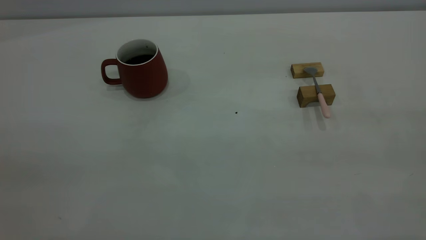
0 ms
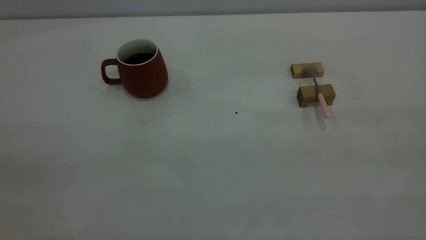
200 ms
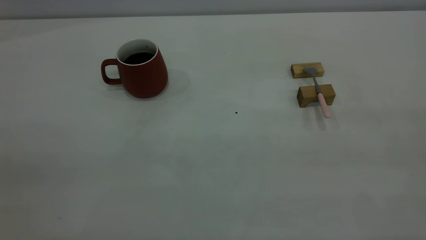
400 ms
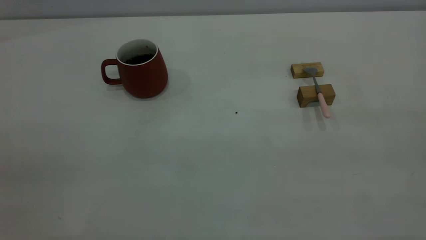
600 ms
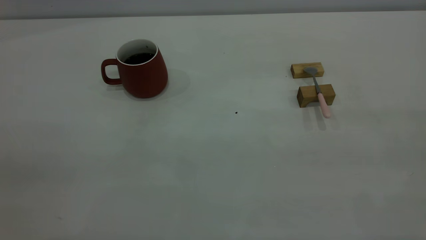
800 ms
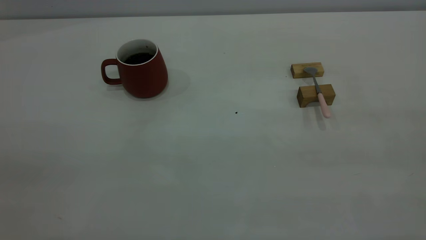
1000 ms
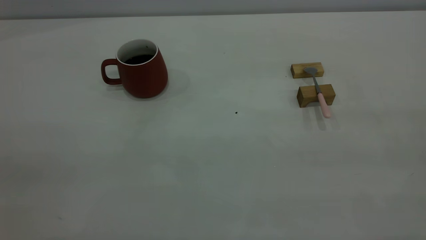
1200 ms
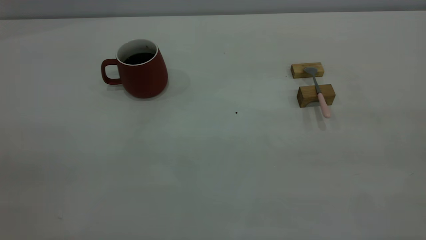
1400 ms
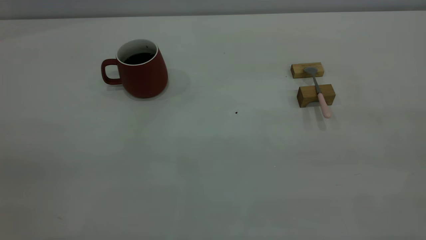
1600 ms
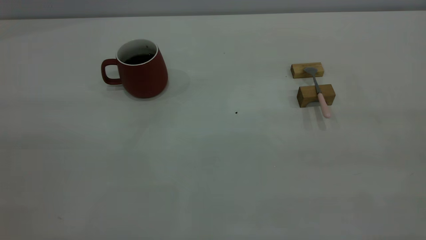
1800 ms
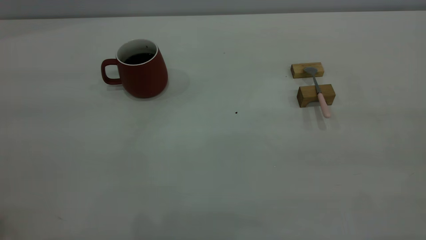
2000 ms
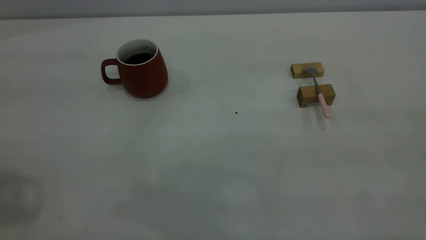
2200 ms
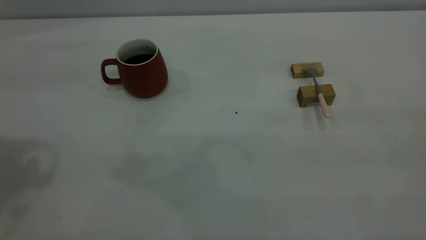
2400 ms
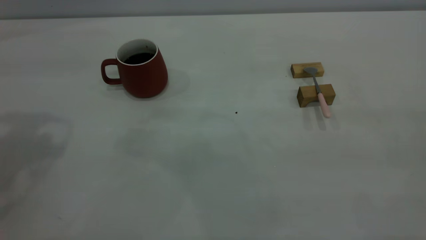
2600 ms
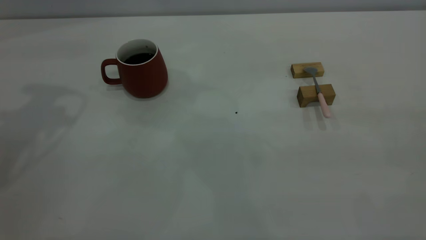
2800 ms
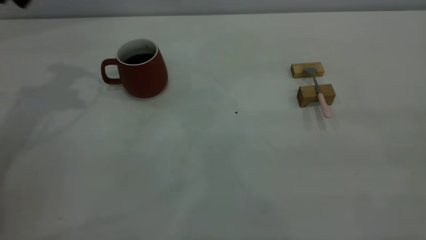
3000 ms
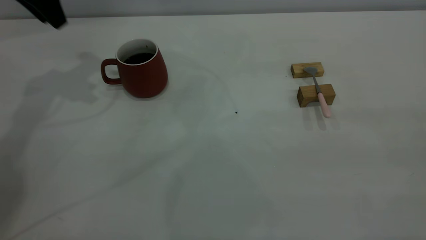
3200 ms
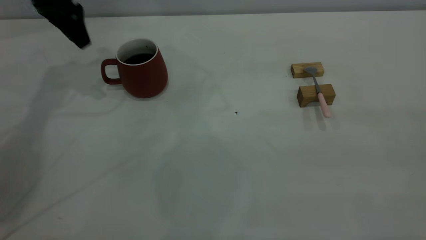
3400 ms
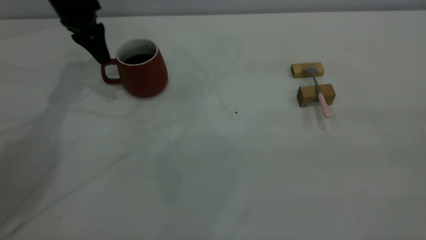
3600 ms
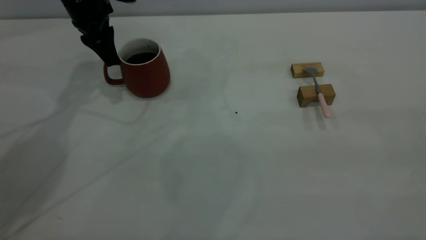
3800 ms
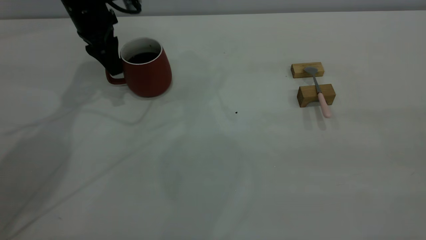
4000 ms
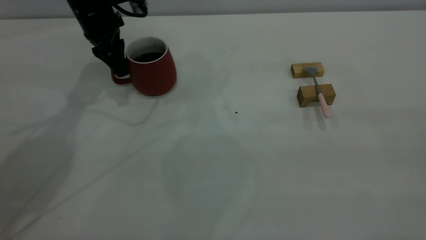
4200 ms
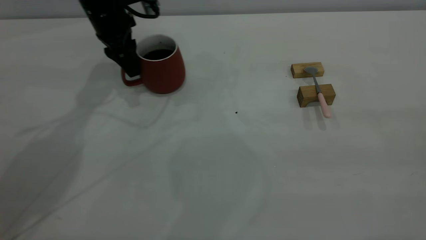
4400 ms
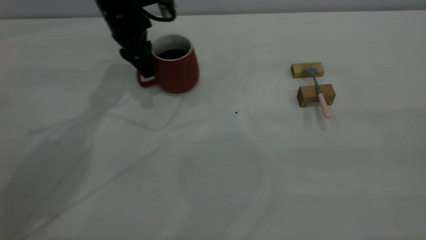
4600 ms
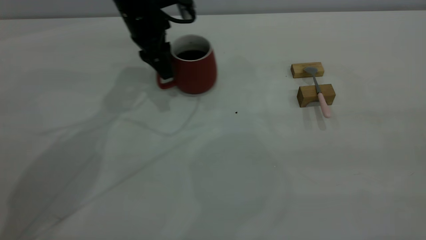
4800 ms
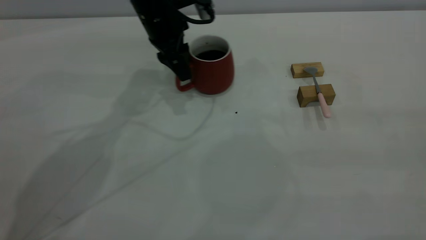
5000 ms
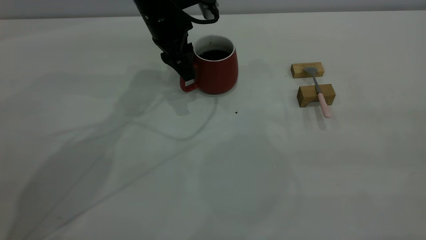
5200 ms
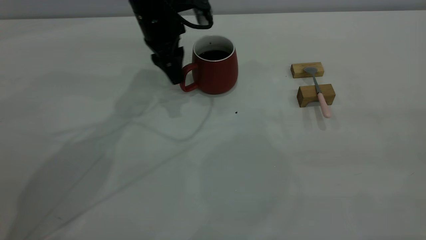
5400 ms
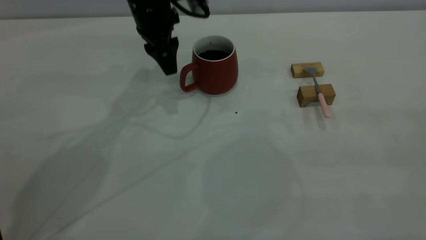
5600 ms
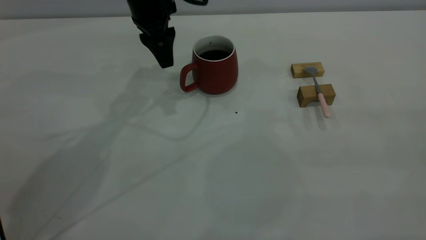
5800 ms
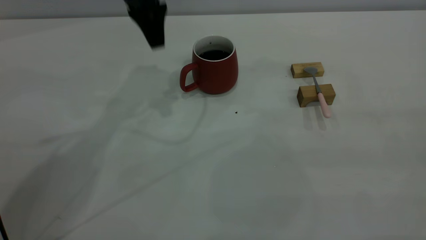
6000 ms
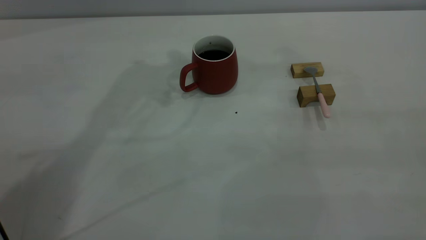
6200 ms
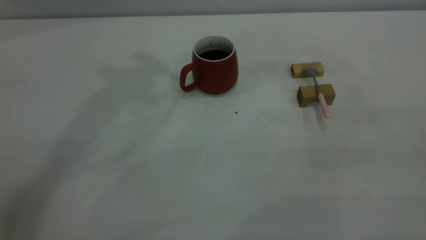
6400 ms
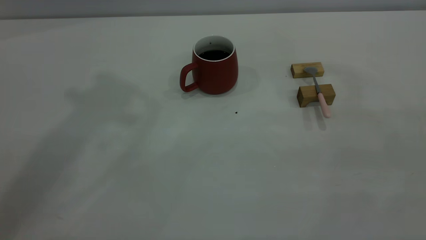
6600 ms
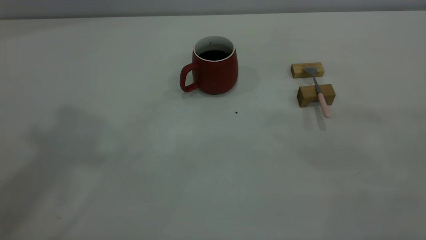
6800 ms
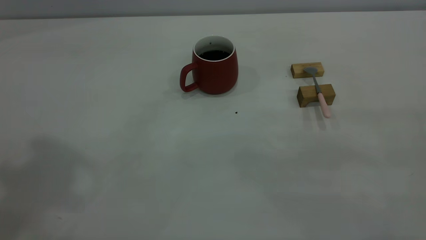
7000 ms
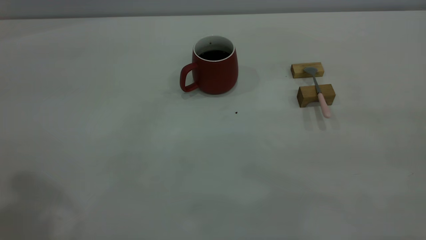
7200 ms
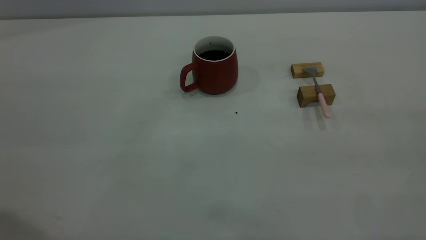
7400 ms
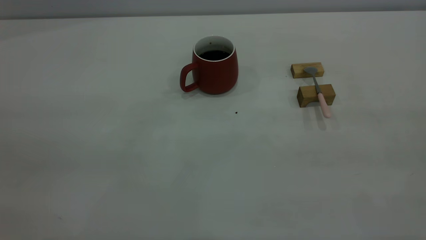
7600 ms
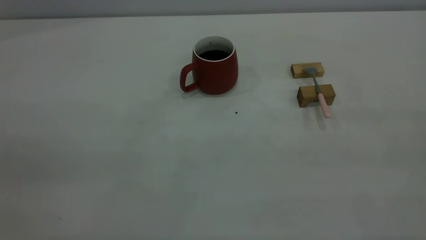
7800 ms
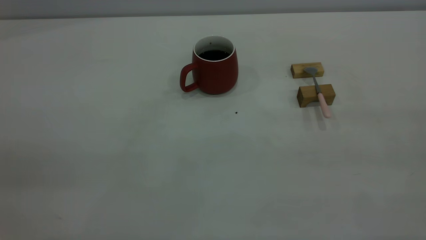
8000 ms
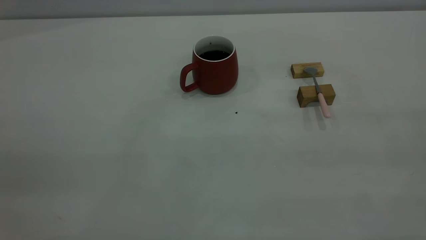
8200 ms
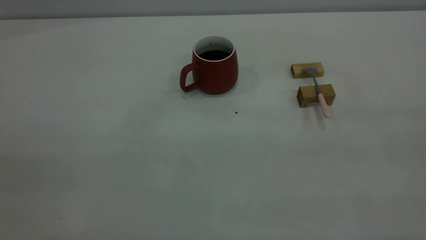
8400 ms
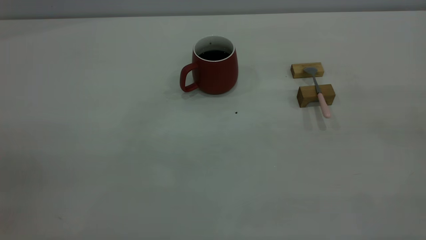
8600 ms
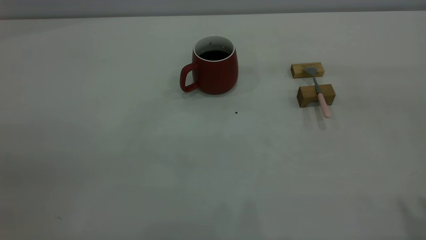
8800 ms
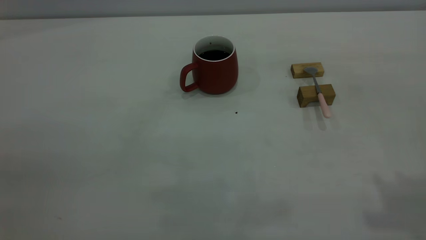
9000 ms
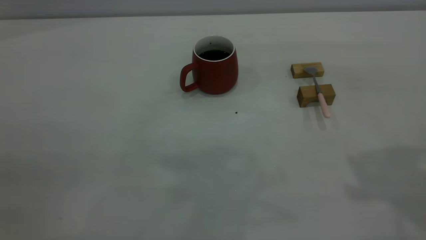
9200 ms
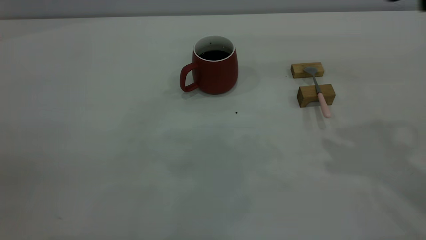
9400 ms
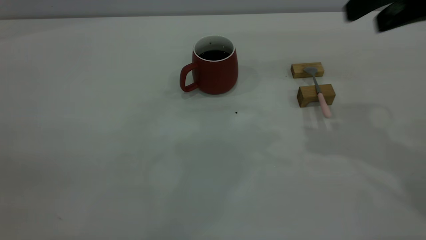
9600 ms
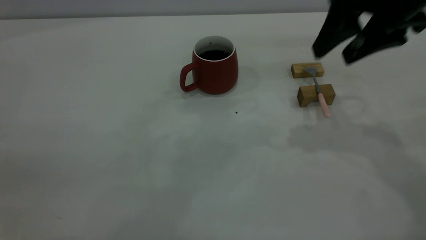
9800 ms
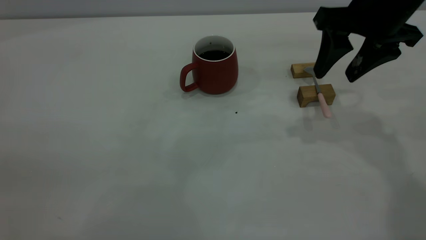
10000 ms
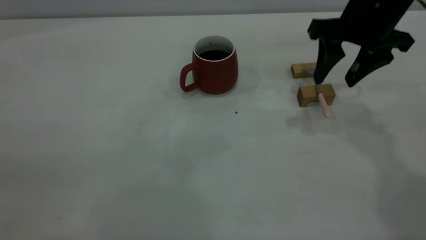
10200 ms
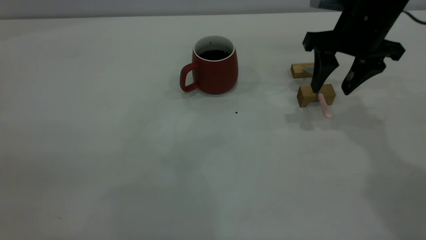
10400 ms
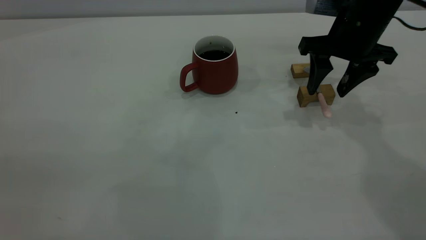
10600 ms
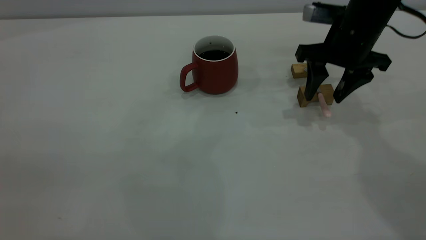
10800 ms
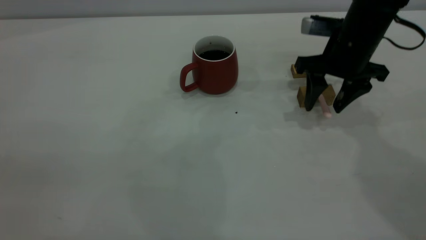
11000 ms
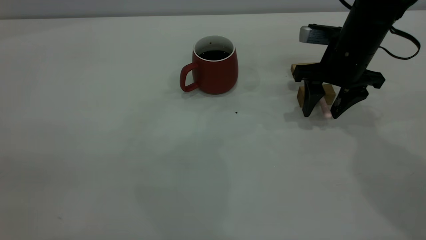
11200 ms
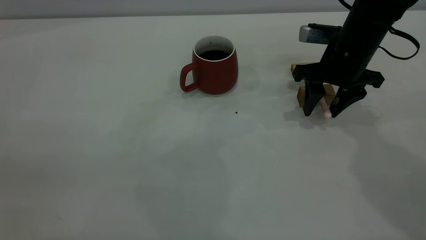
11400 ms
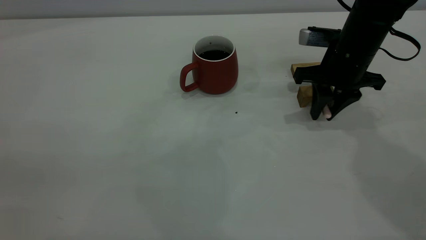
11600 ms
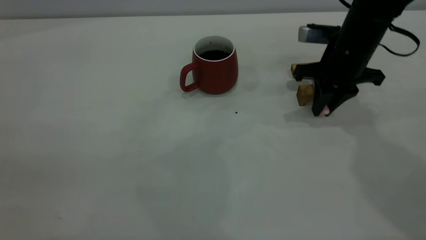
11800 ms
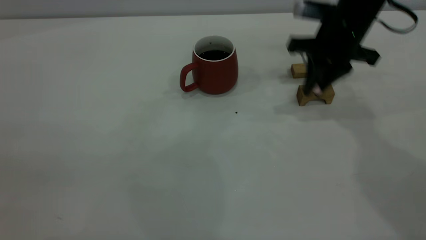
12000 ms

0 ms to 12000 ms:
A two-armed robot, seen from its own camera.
Step, 0 ms to 5600 ms: Move the cup with coffee to the center of view.
Step, 5800 ms to 11800 ms: Pick up the spoon.
0 ms to 1600 ms: Both grippers stay put.
3000 ms to 4400 ms: The left gripper heads downward, to the right and forward, covering roughly 20 cm.
4400 ms to 6000 ms: The left gripper goes approximately 15 cm upward and to the right.
6000 ms to 7600 ms: The left gripper travels backward by about 40 cm.
9000 ms to 10400 ms: The right gripper heads forward and downward, covering some 30 cm, and opens its fingers.
10400 ms to 12000 ms: The right gripper closes up.

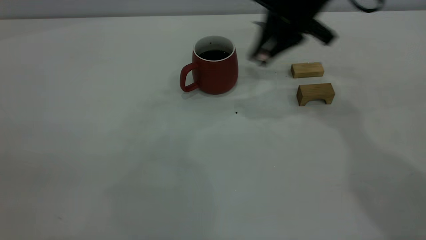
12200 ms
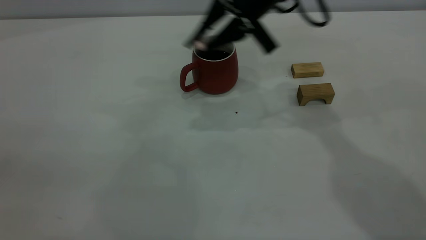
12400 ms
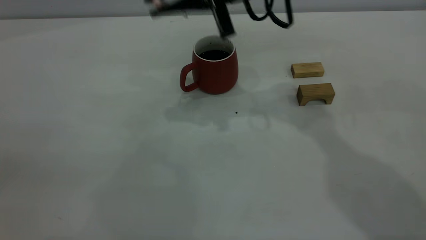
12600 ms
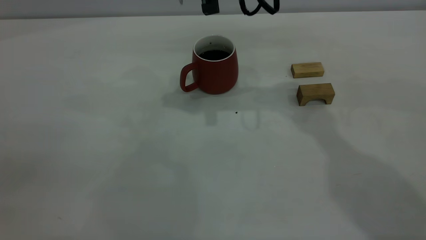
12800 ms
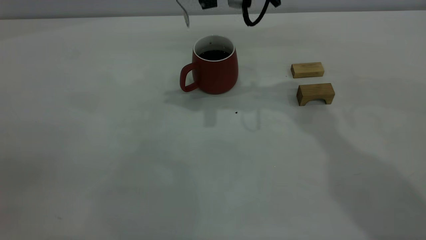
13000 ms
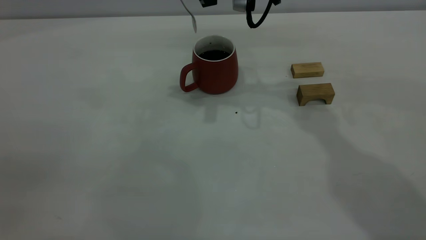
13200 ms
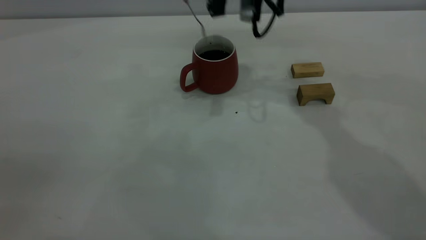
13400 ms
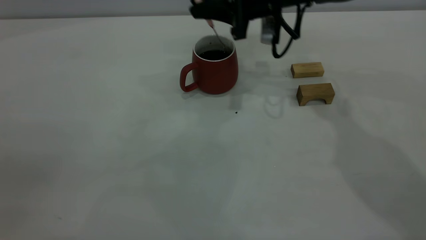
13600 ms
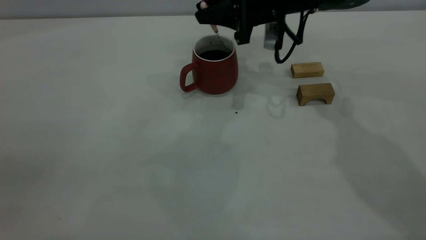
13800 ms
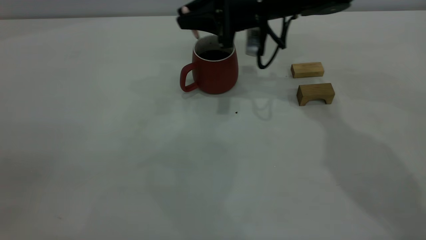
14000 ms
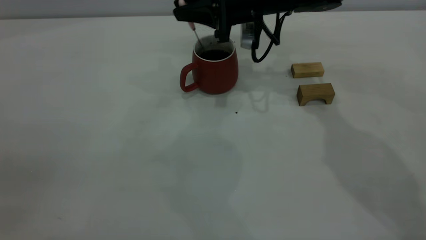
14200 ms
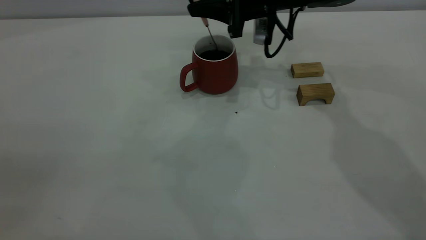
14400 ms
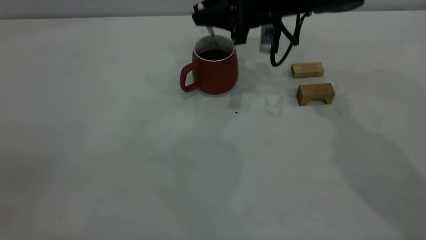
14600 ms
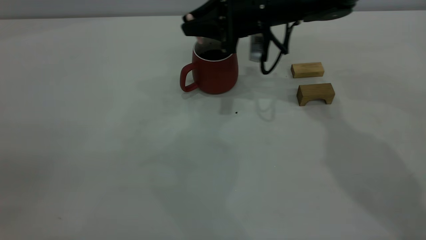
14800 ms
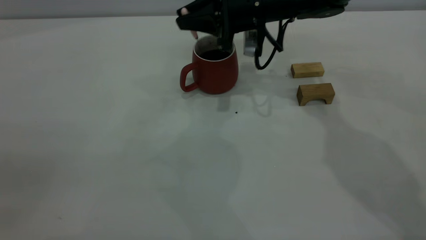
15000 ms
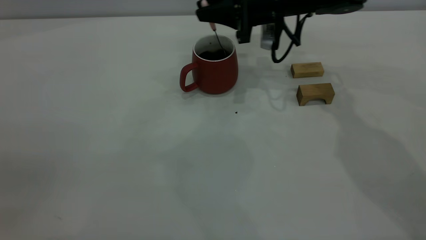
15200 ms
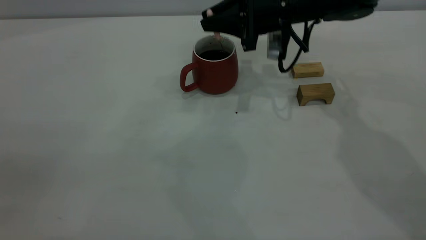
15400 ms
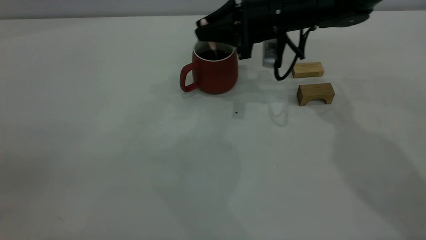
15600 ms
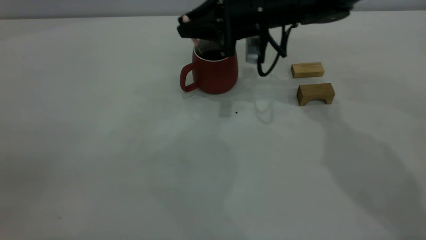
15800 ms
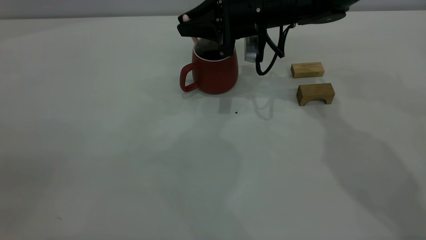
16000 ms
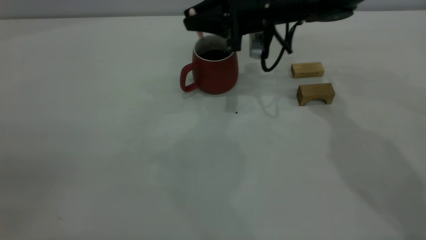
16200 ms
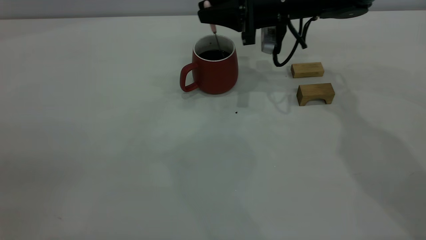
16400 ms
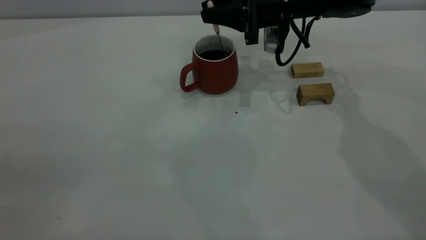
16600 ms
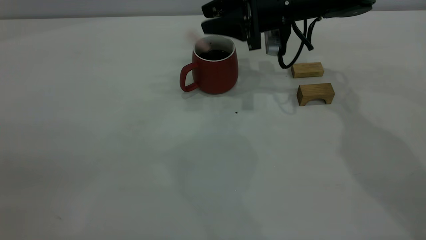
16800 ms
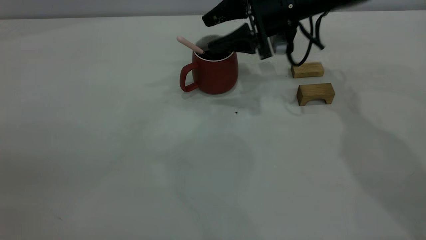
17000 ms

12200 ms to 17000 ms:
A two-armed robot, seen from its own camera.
12200 ms to 13800 ms: The right gripper heads downward, covering about 5 cm.
13800 ms to 15400 ms: The grippers move only a little.
15400 ms to 17000 ms: The right gripper opens.
